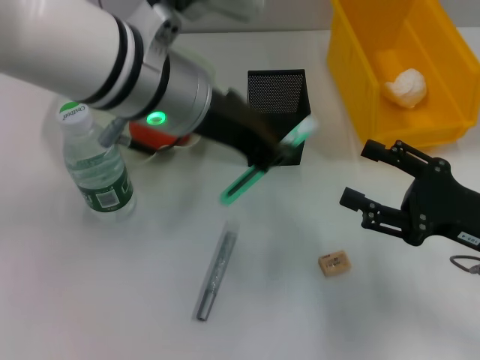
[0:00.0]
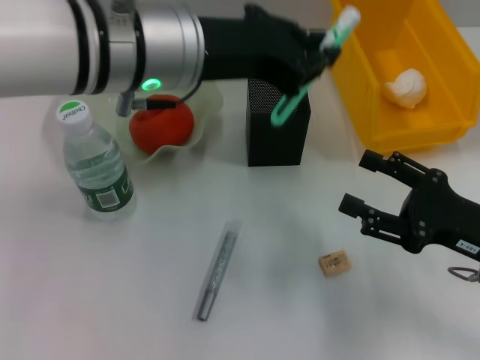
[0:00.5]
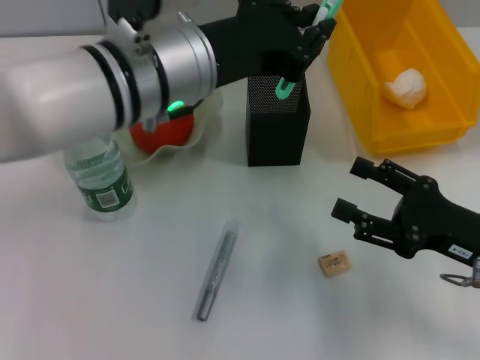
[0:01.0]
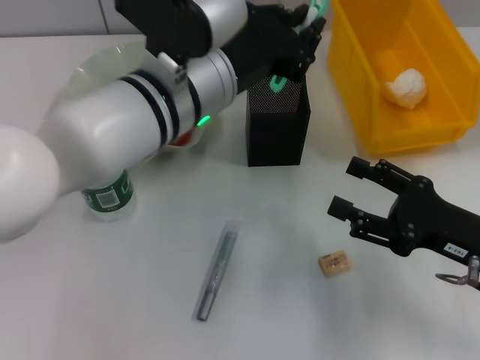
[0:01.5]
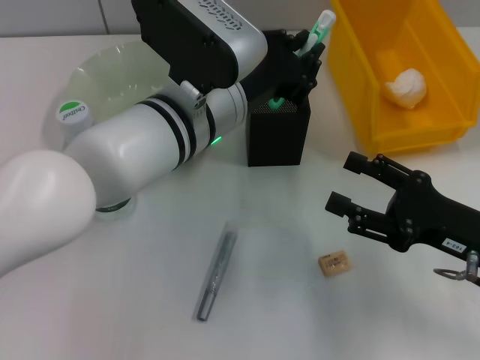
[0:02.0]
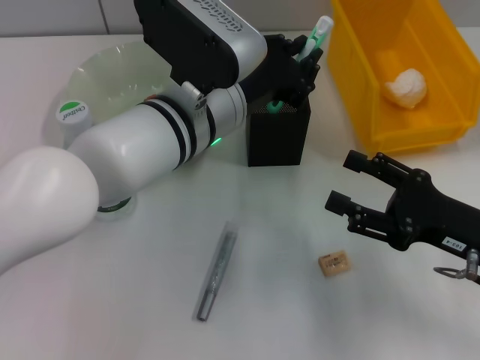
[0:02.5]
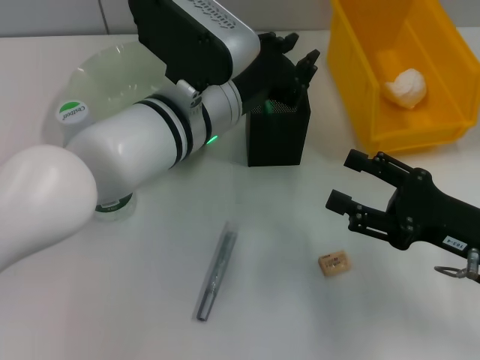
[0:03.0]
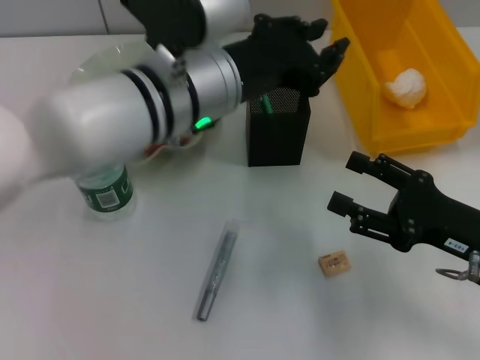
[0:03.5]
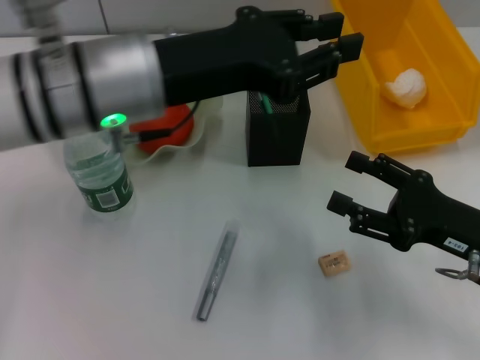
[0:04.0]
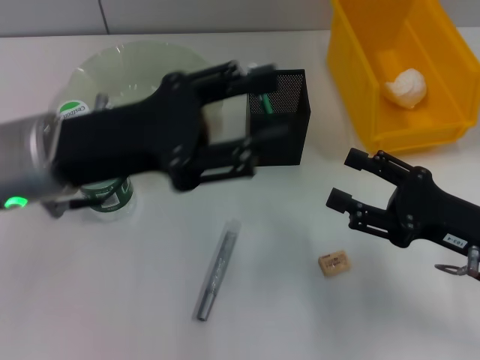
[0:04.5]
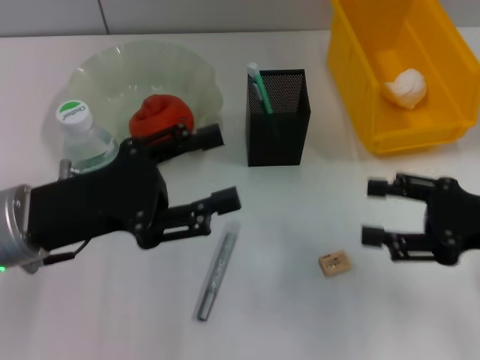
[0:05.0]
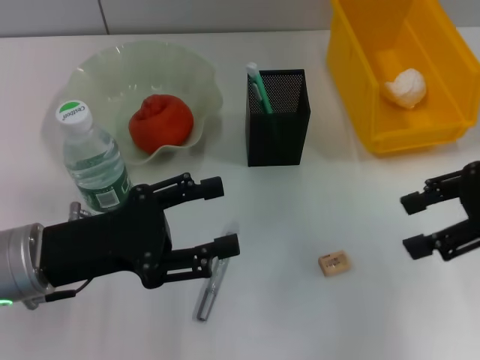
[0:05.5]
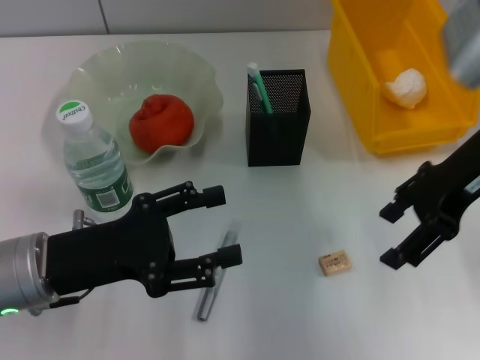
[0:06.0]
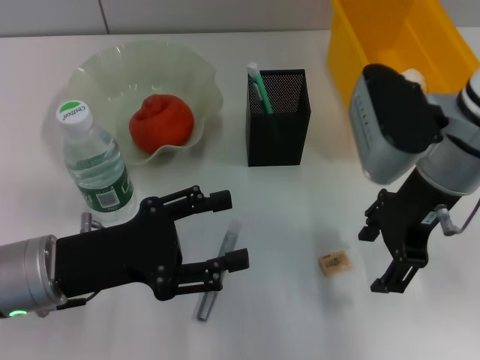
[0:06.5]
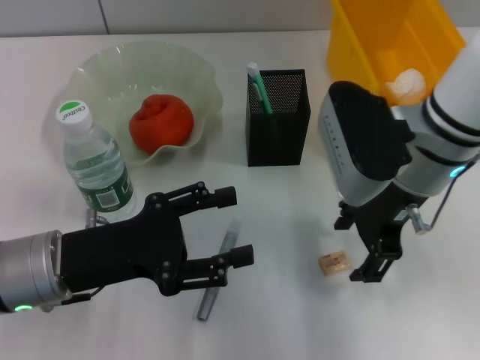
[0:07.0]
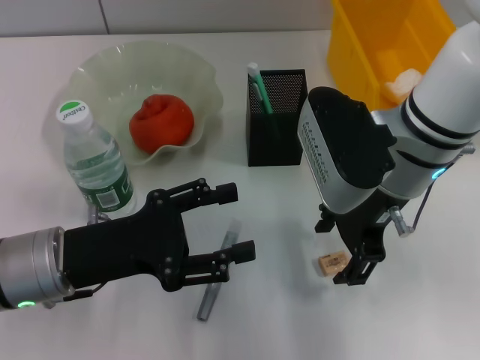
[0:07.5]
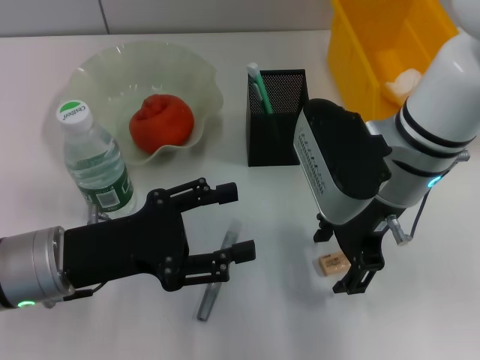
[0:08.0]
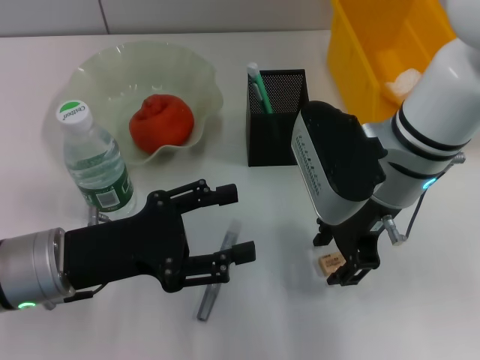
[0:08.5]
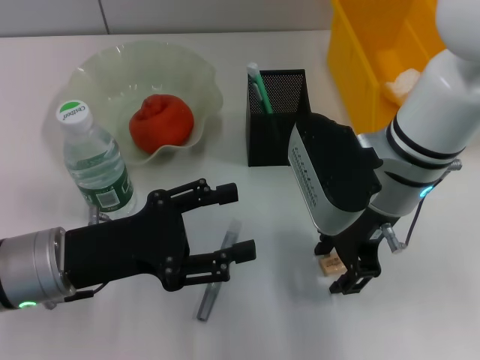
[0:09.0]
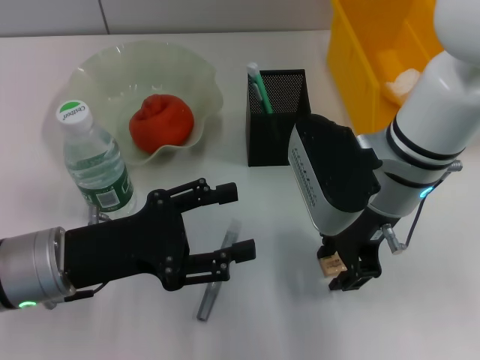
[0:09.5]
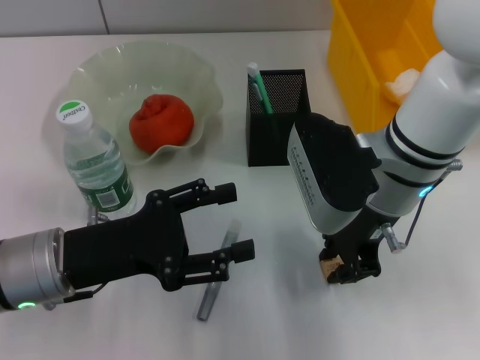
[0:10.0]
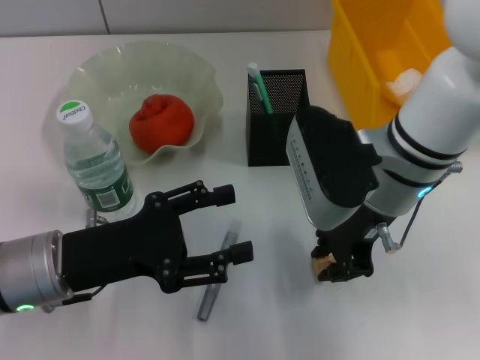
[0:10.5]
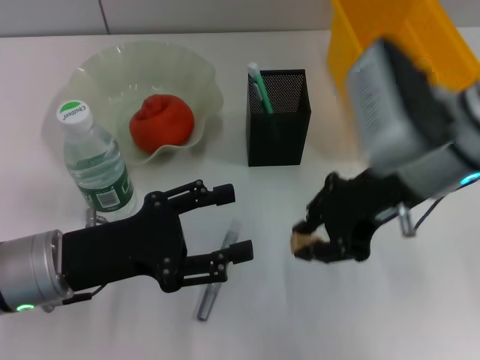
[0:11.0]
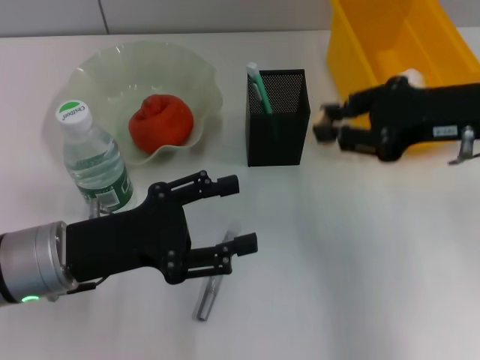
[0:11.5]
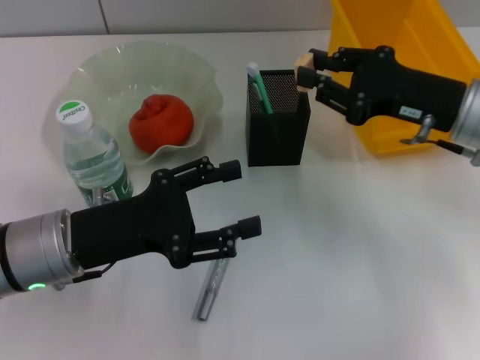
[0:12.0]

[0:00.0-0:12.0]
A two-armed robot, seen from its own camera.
Step, 0:00.0 to 0:03.0: Place the blue utility knife into the pen holder with the left hand.
Step, 0:03.5 to 0:10.0: Grab the eraser with the right hand.
0:00.0 to 0:02.0: The left gripper travels downward by roughly 10 cm.
0:02.0 to 0:04.0: The left gripper heads to the left and upward, covering some 10 cm.
0:04.0 to 0:06.0: The right gripper goes approximately 15 cm upward and forward; the left gripper travels downward, to the left and backward by some 15 cm, and opens its fingers.
0:06.0 to 0:08.0: The right gripper is displaced to the left by approximately 10 cm.
0:08.0 to 0:10.0: The right gripper closes.
0:10.0 to 0:12.0: The right gripper shifts about 10 cm to the right.

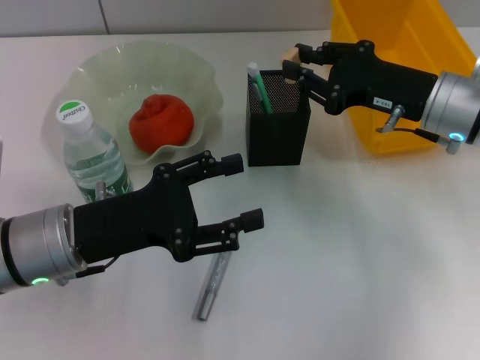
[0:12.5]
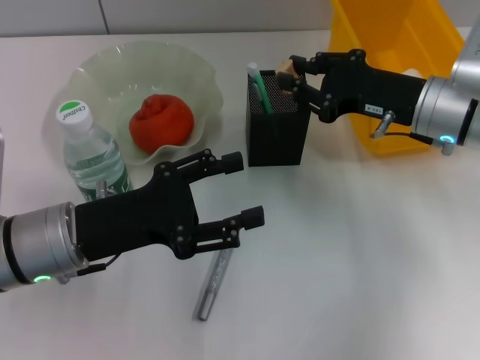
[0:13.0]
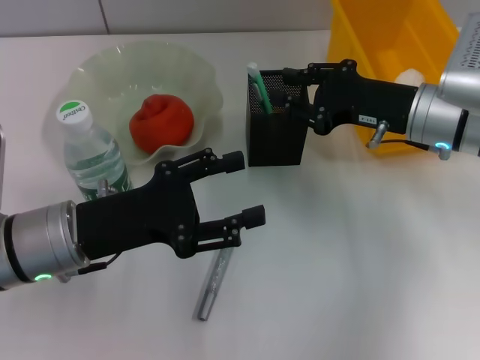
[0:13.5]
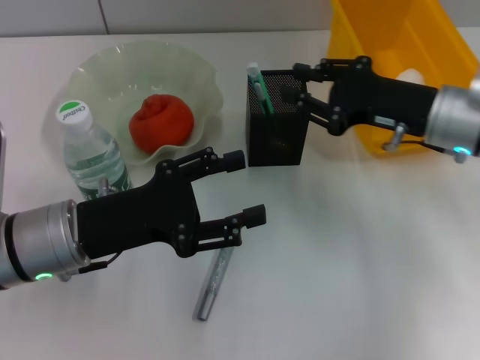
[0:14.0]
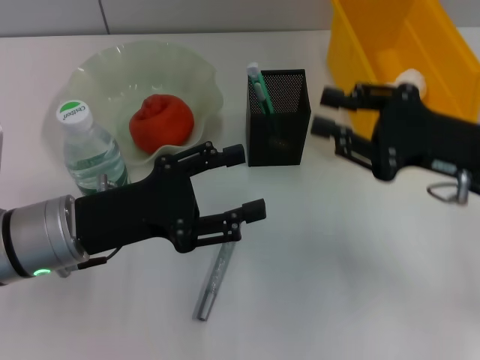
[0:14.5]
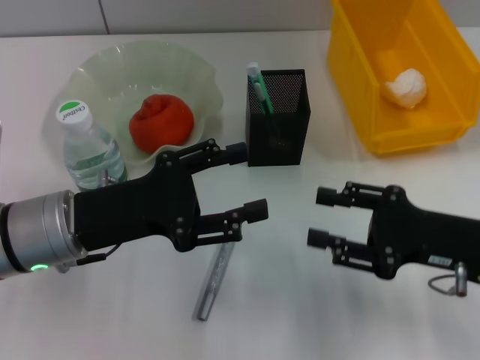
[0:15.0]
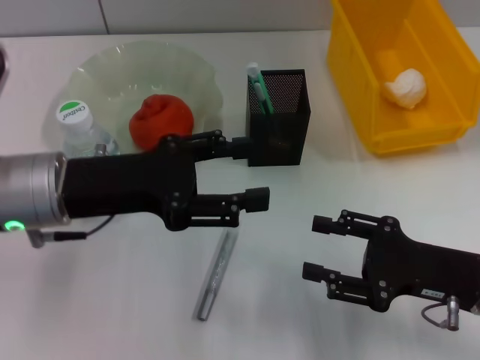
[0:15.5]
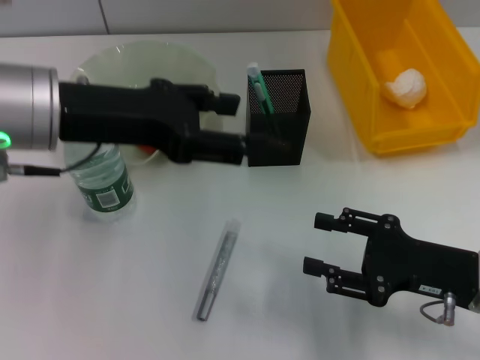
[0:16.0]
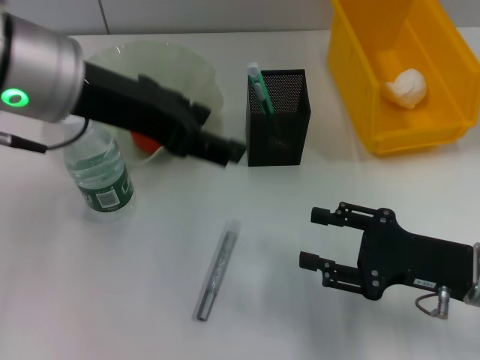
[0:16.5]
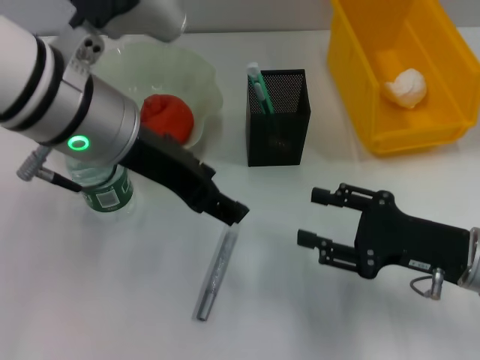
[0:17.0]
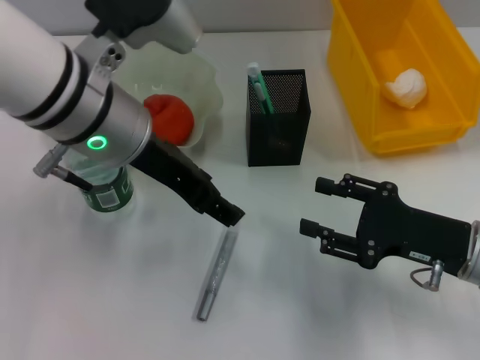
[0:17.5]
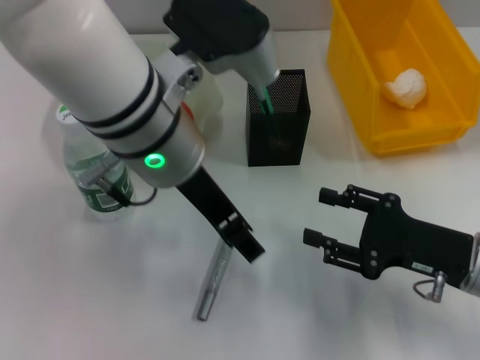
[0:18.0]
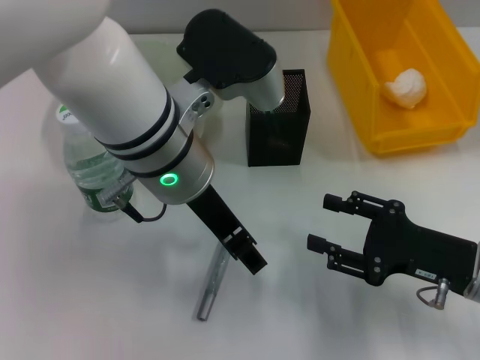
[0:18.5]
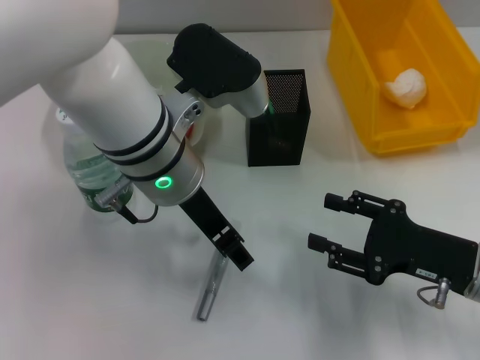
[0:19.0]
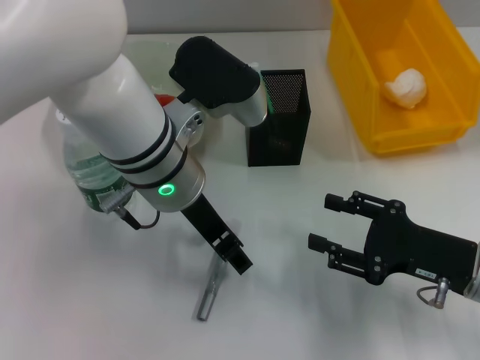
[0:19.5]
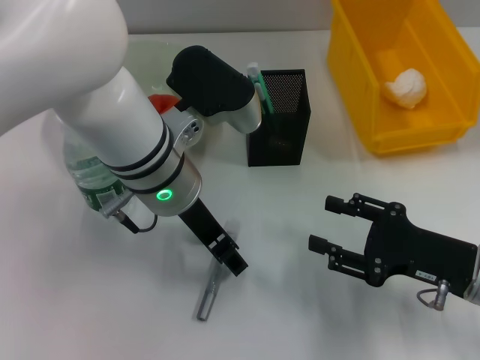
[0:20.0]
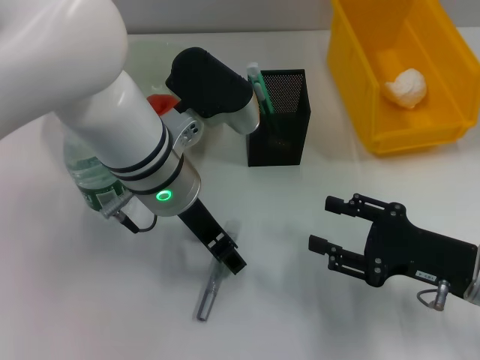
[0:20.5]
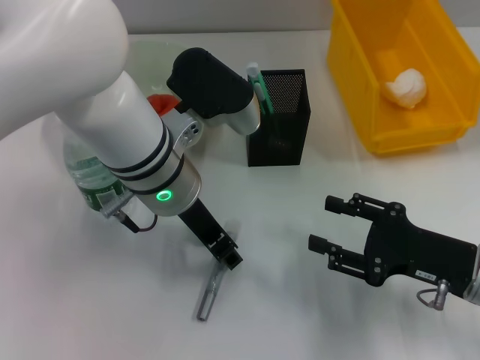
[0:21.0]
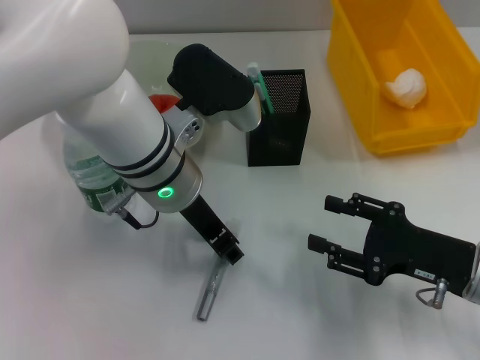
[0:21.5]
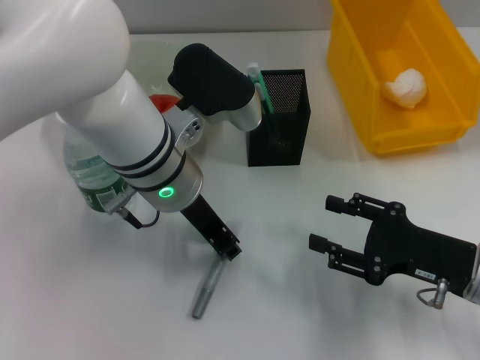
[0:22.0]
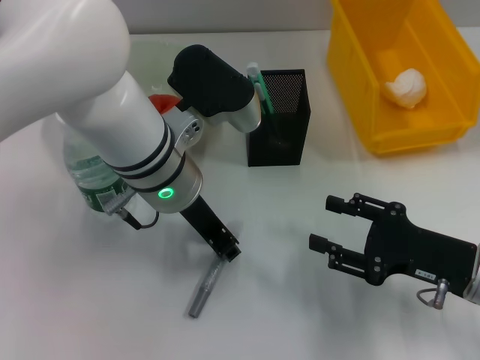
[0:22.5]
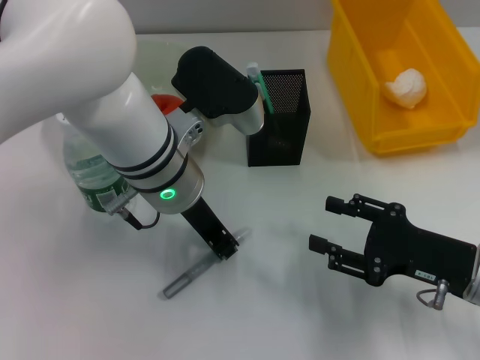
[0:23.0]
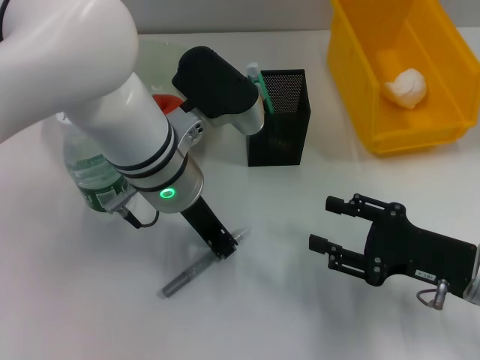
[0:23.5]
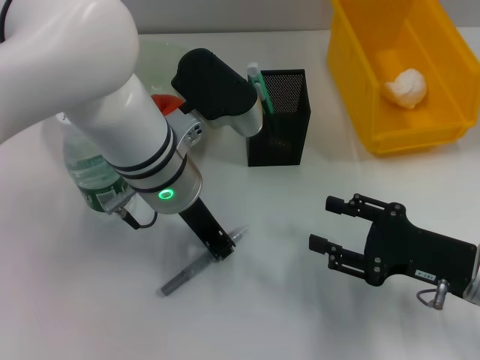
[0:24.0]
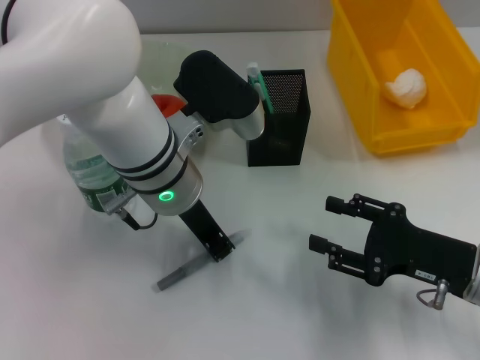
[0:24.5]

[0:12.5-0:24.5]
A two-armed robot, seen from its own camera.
Step, 0:14.0 to 0:24.0: Grab the gray glue with the left hand.
0:12.5 to 0:14.5: The right gripper moves backward, roughly 5 cm.
0:14.5 to 0:16.5: The left gripper goes about 15 cm upward; the right gripper travels downward and backward by approximately 10 cm, and opens.
0:16.5 to 0:18.5: The left gripper is displaced to the right and downward by approximately 10 cm.
0:18.5 to 0:20.5: The left gripper shifts by about 5 cm.
0:20.5 to 0:22.5: The left gripper closes up.
0:22.5 to 0:24.5: Both grippers stay put.

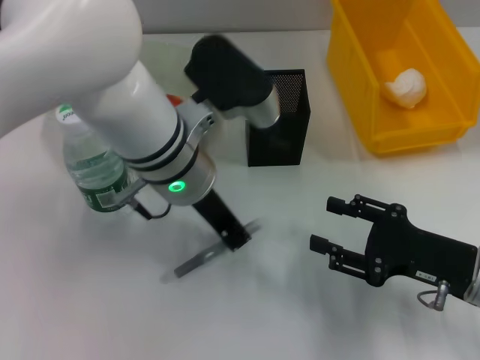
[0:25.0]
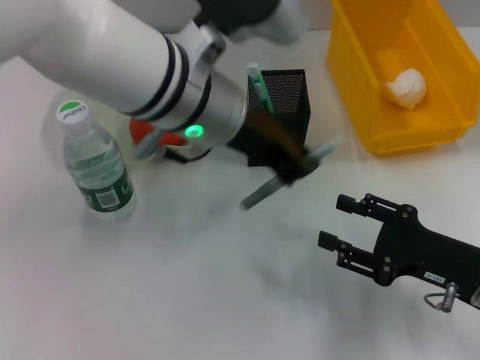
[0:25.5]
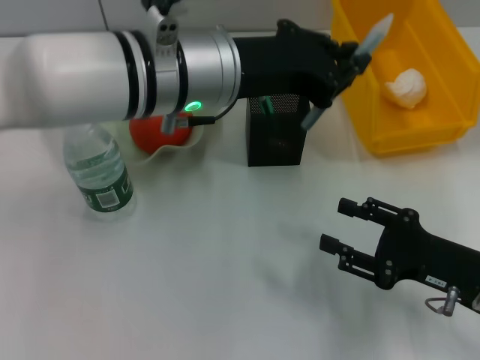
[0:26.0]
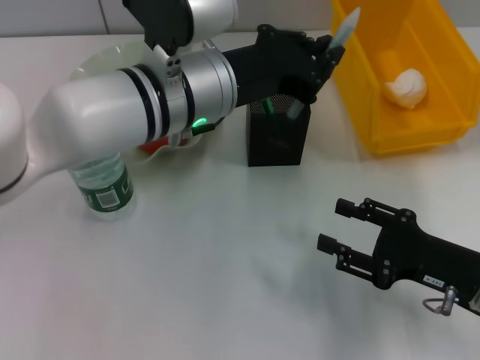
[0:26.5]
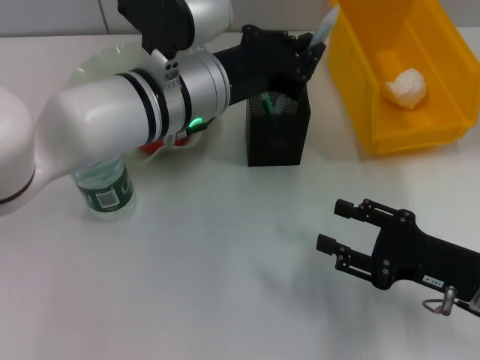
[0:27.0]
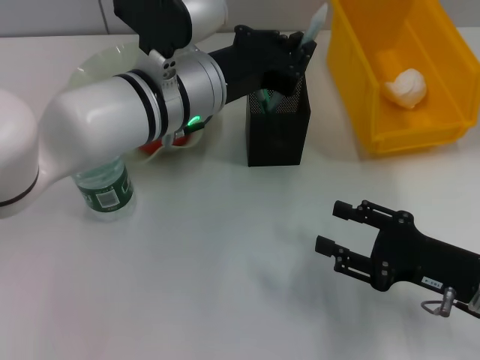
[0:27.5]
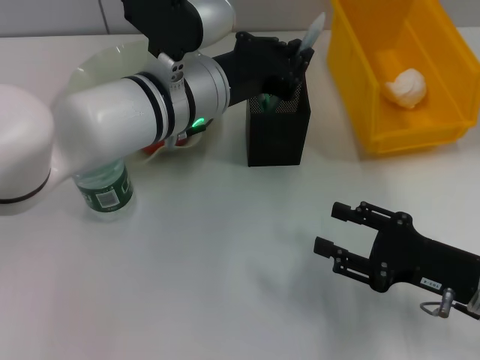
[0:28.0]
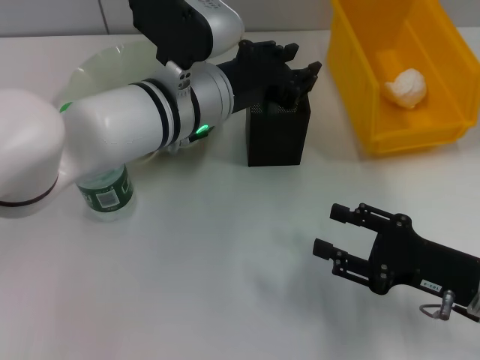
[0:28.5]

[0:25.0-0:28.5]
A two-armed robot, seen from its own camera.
Step, 0:25.0 to 0:28.5: Place the gray glue into the pen holder with the left hand.
0:27.0 to 0:28.5: The grippers move only a little.
